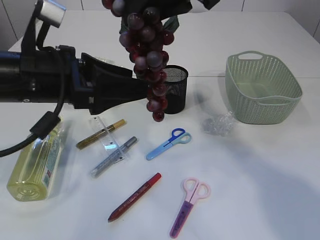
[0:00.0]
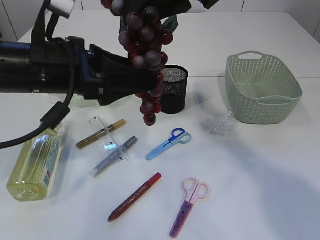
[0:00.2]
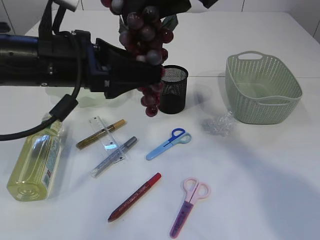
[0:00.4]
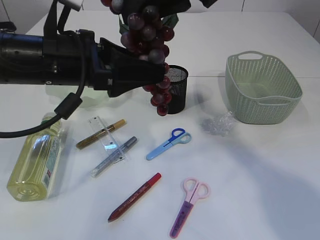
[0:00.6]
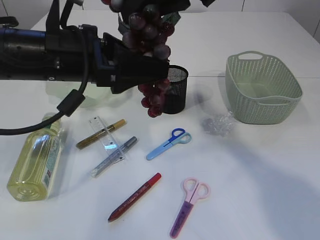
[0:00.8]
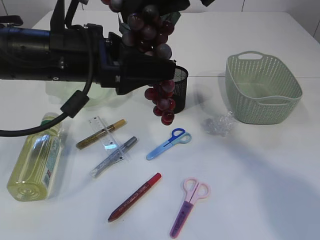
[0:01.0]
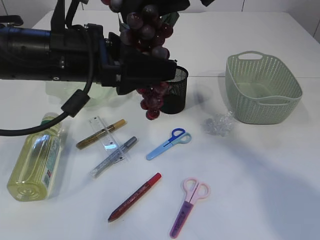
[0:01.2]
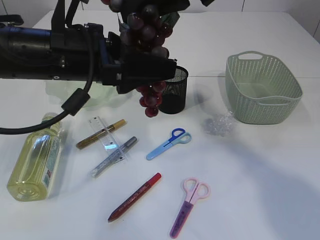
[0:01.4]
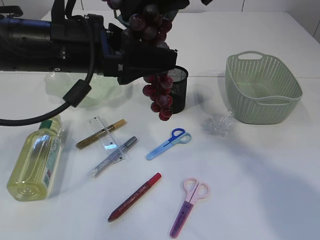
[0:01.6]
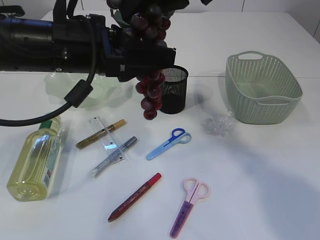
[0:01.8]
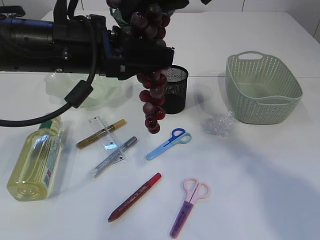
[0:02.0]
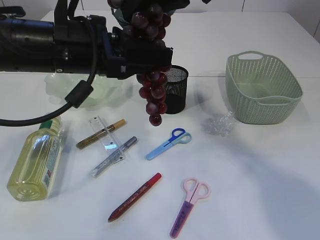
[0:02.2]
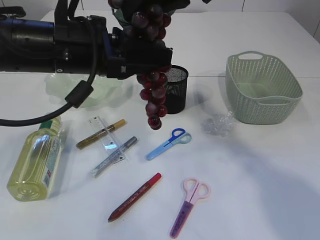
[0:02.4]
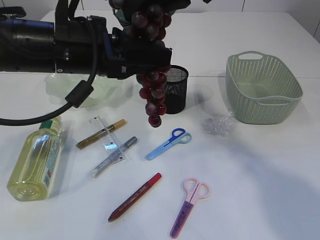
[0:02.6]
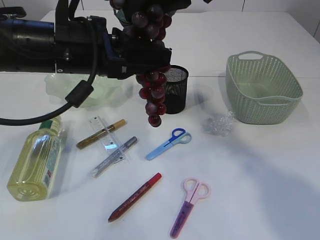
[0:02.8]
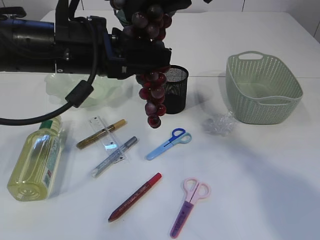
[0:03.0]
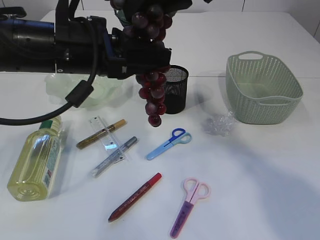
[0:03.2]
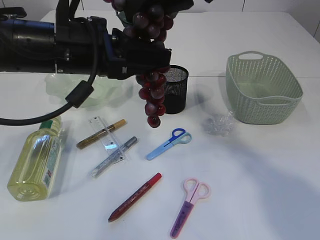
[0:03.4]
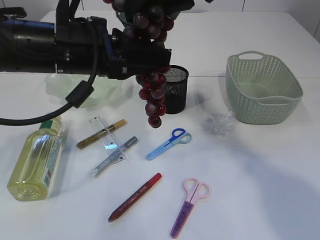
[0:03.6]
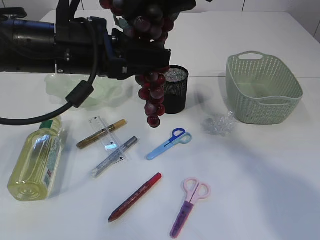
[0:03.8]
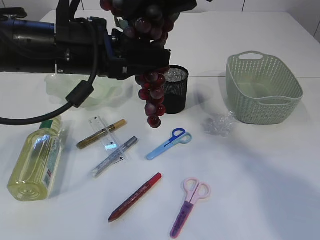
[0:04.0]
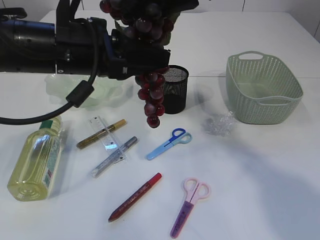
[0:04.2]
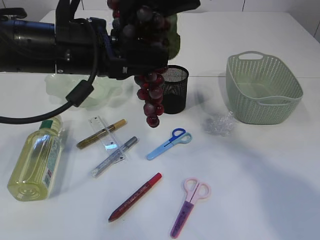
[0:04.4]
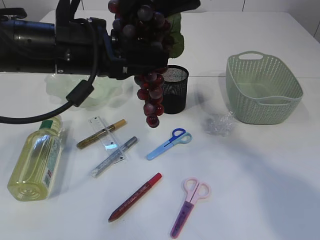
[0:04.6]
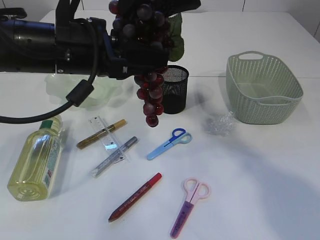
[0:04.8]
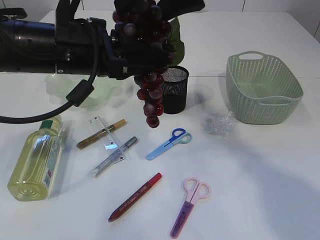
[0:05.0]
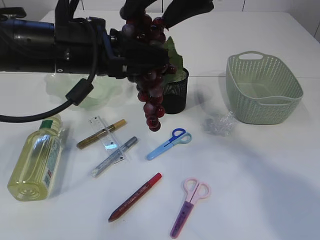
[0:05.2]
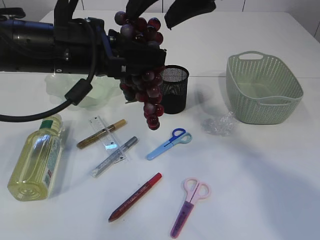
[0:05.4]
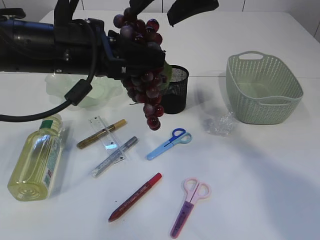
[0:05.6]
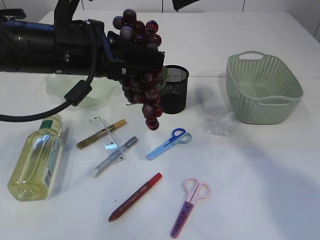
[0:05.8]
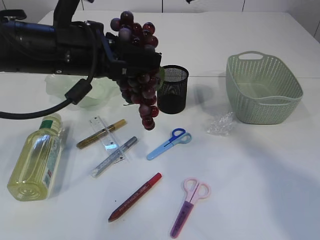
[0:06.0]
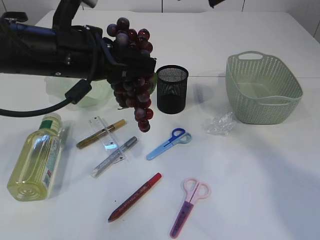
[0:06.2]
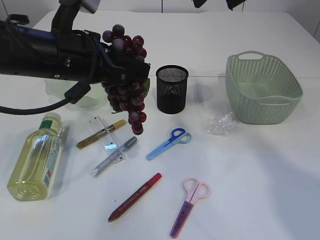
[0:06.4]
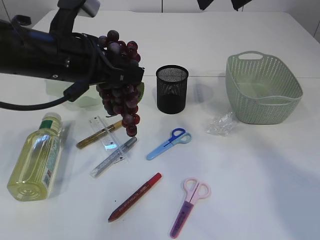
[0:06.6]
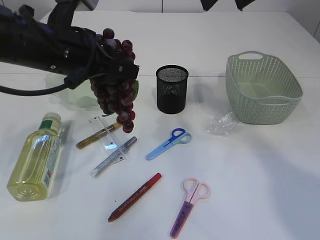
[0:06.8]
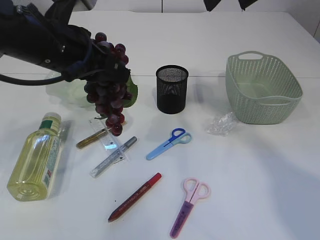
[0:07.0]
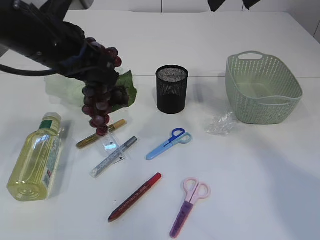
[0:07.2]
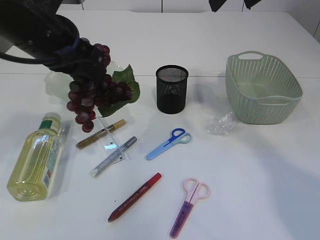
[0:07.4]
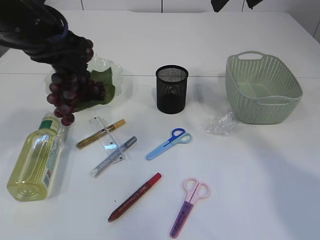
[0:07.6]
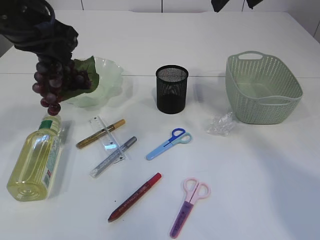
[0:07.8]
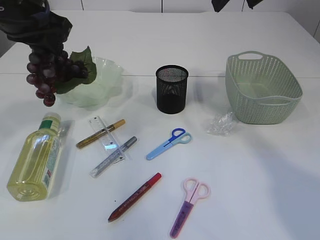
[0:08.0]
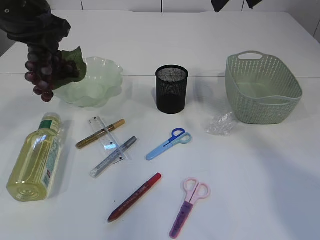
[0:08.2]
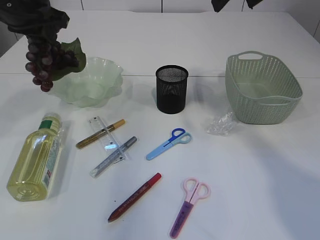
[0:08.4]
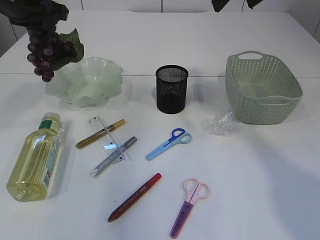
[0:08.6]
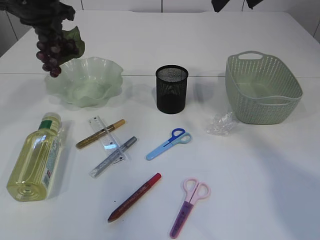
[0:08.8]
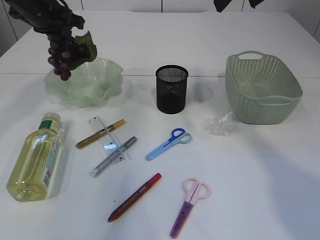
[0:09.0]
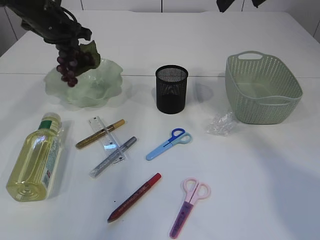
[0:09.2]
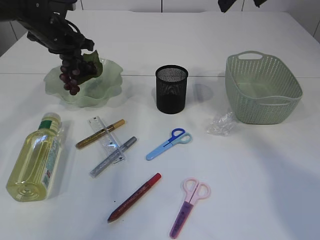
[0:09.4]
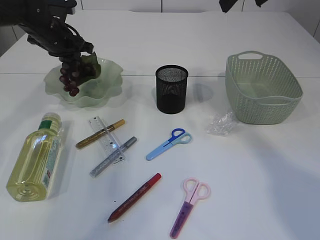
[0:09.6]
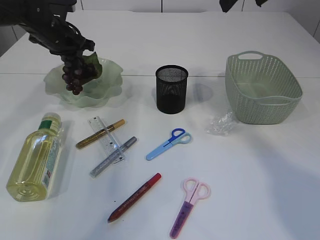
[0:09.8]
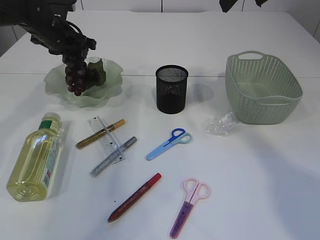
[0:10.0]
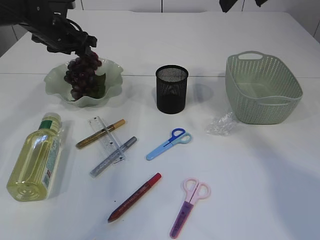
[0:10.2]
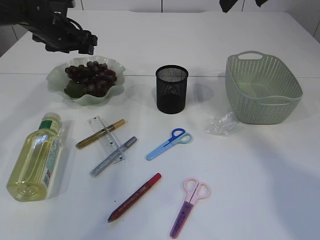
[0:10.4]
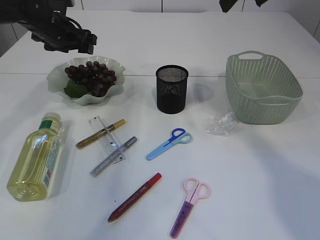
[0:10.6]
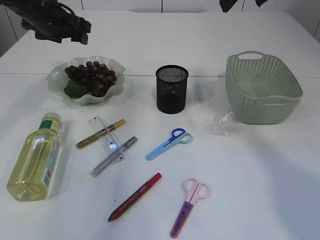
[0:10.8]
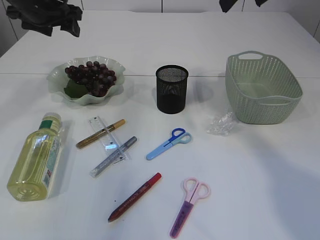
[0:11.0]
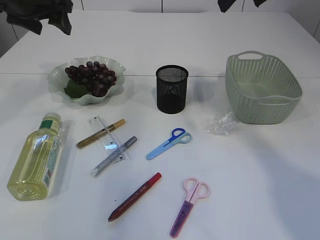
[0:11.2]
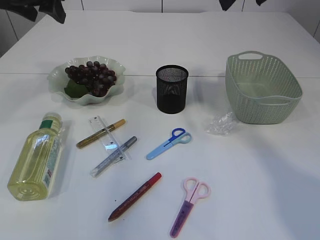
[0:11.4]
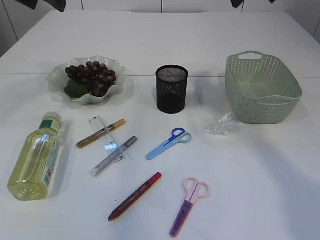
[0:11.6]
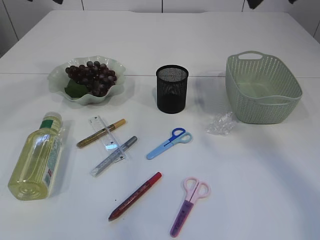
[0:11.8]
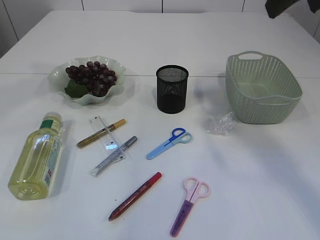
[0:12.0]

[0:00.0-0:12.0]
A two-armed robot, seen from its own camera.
Step, 0:00.0 to 0:05.6: Hand over the grapes.
Step, 0:05.8 to 0:10.6: Place the grapes in the plate.
0:00.0 to 0:01.6: The left gripper ends up about 5 cm from where it was.
0:01.6 to 0:03.0: The left gripper closes.
0:03.0 to 0:04.4: The right gripper opens up.
0:04.4 to 0:06.0: The right gripper changes place by some 5 cm, and opens its fingers.
0:06.0 to 0:07.6: The right gripper shifts by roughly 5 cm. The left gripper shifts by roughly 5 cm.
0:07.6 to 0:09.0: The left gripper shifts some 15 cm forward.
0:09.0 to 0:10.4: The left gripper travels downward by about 5 cm, and opens.
0:10.4 to 0:12.0: The left gripper shifts about 25 cm upward and backward; the right gripper is displaced backward by about 10 cm.

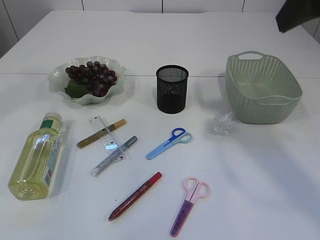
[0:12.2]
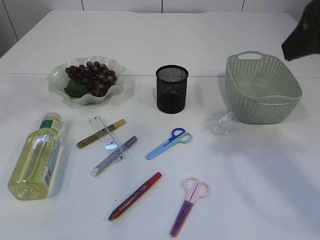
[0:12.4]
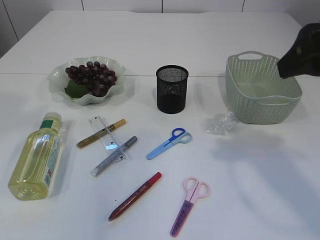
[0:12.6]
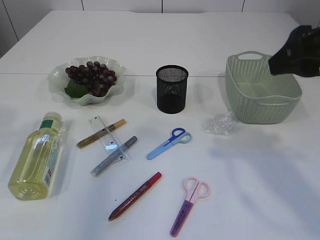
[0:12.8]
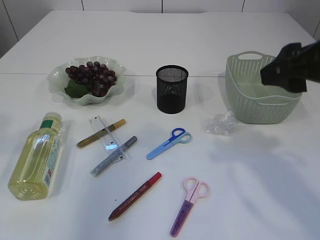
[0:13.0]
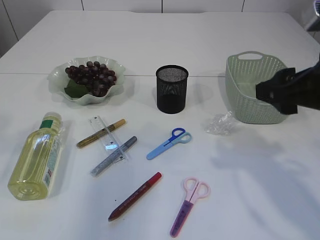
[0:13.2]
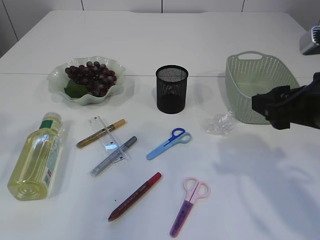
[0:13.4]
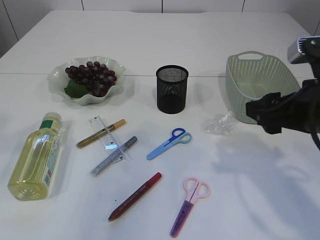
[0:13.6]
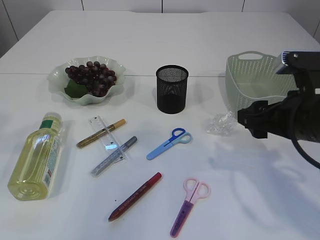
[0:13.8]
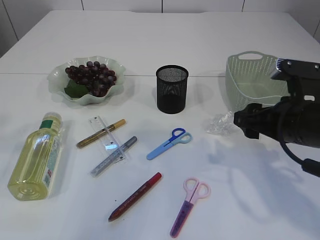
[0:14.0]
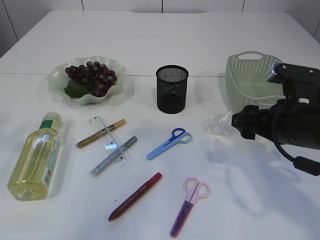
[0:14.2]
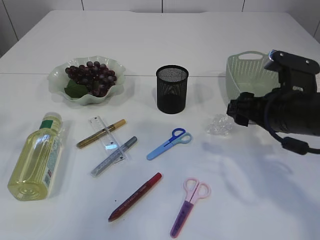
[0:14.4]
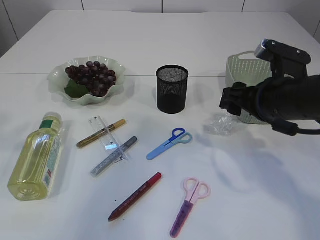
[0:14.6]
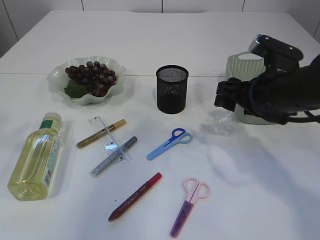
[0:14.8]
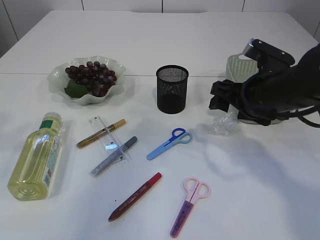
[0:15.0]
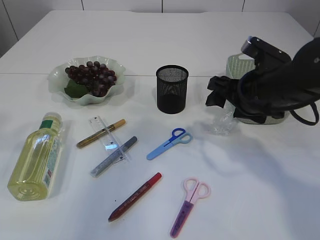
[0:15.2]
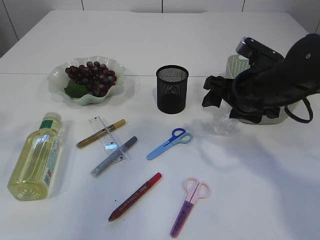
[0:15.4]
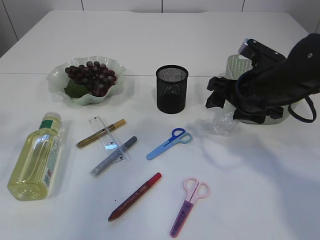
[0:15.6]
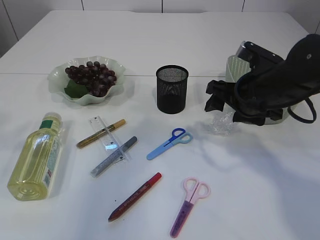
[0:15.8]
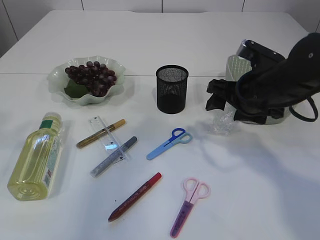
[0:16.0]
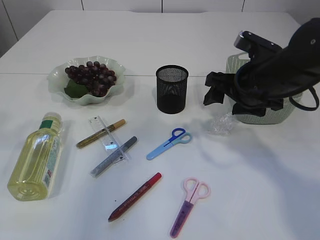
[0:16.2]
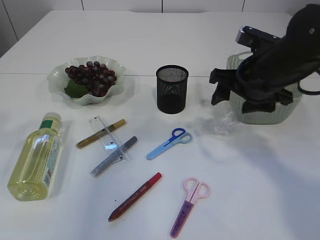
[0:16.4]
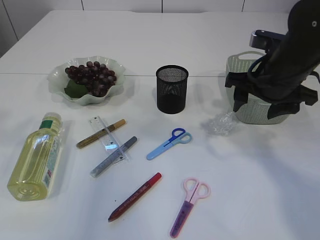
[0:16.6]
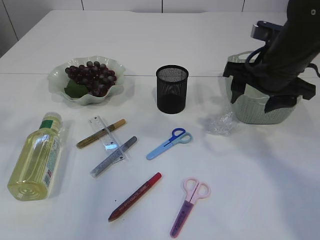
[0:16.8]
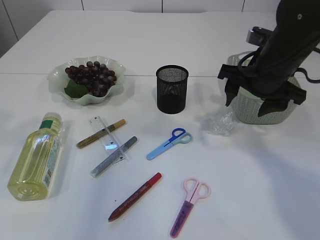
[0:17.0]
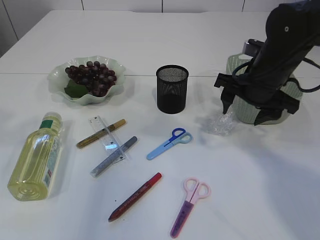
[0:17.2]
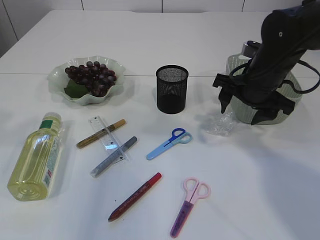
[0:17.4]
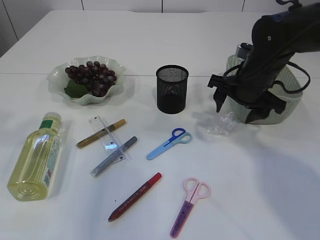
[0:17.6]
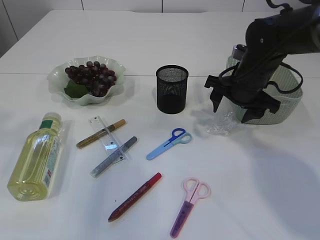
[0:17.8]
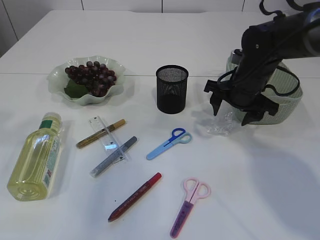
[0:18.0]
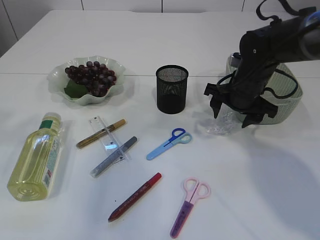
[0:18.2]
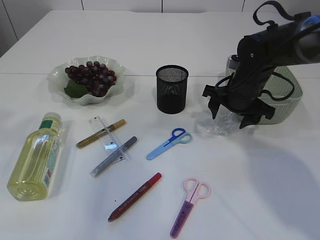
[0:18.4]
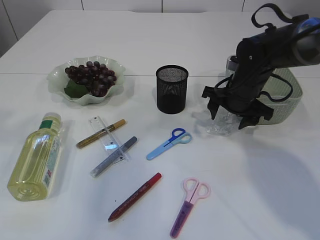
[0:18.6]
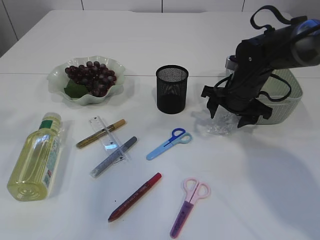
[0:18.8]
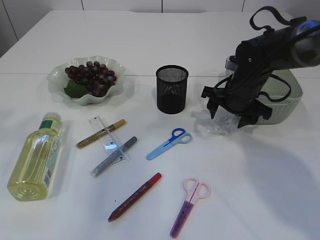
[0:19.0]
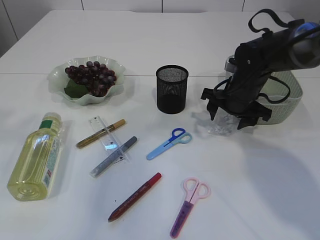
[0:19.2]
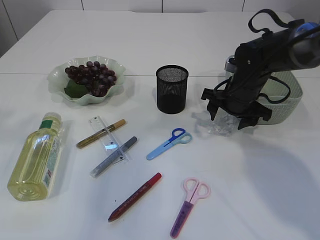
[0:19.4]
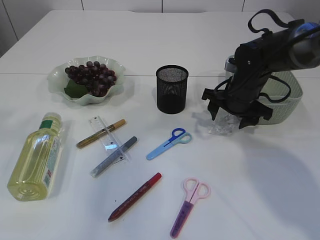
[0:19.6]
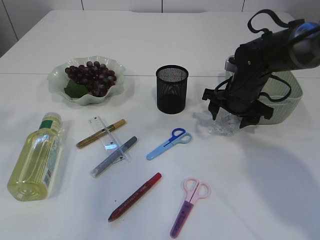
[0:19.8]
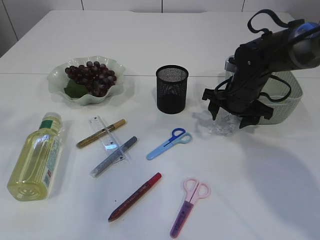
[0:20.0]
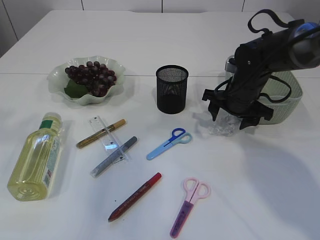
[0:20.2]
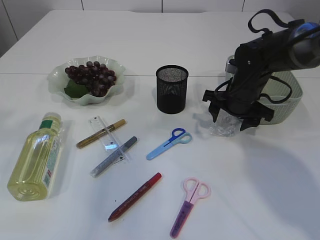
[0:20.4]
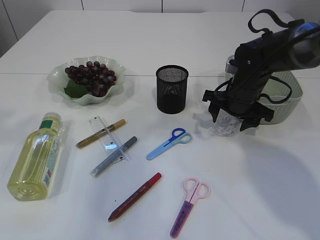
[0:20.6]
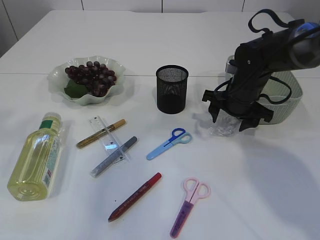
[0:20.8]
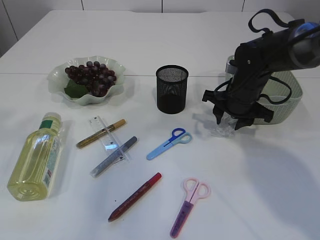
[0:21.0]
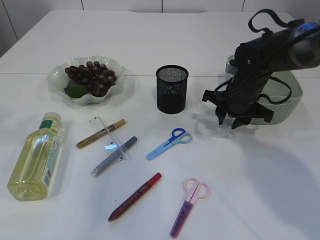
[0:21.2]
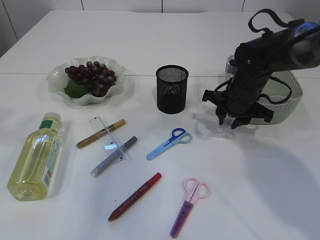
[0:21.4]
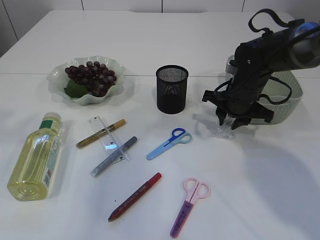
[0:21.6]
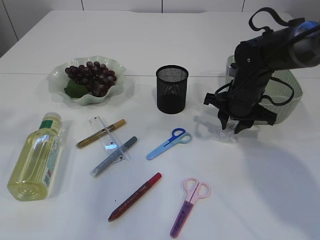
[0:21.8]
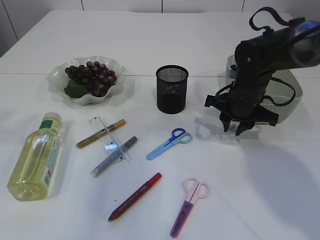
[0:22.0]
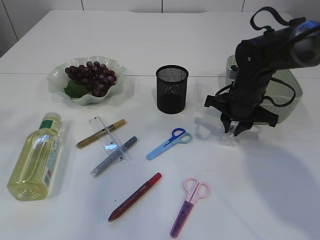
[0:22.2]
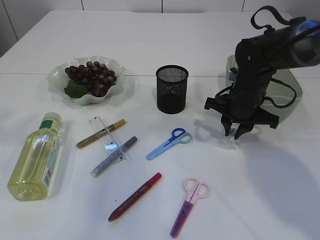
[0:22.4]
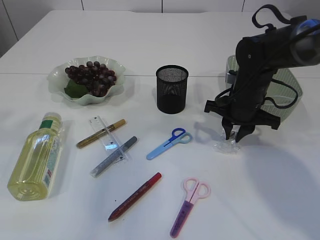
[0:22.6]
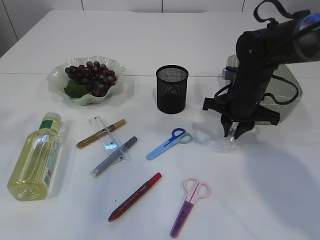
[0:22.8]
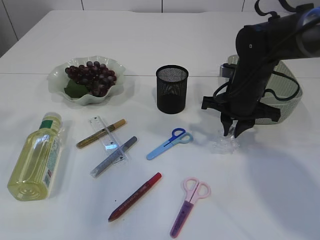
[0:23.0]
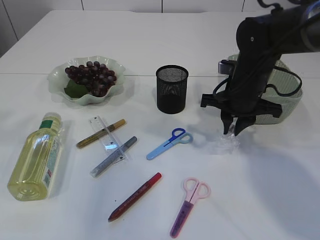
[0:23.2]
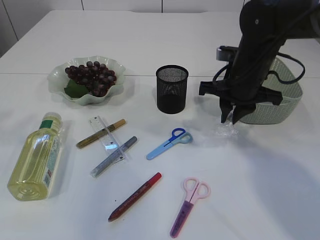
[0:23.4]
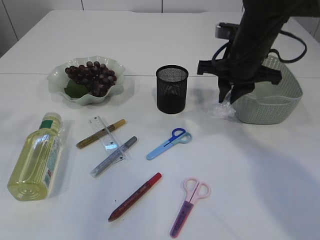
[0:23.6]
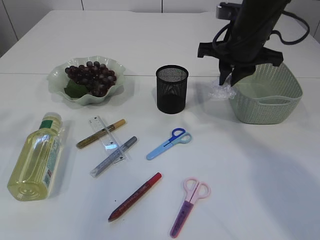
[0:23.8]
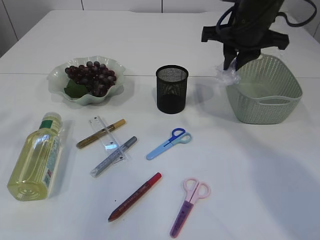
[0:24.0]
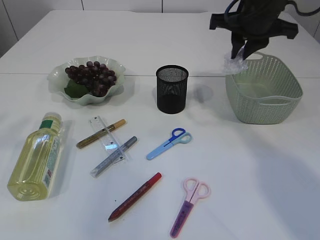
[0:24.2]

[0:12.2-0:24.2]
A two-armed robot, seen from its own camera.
Step, 0:12.2 to 0:23.4: Pick up the plastic.
0:12.2 to 0:13.8: The right gripper heads downward, covering roughly 20 cm. Meanwhile the left gripper is displaced backward by approximately 15 cm.
0:13.8 to 0:15.2: The right gripper heads forward, covering approximately 10 cm.
0:16.6 to 0:18.2: The right gripper shifts approximately 10 cm downward and forward.
0:18.2 to 0:19.8: The grippers make only small movements.
0:19.8 to 0:21.2: The right gripper closes its fingers.
0:21.2 to 0:22.6: There are only small adjustments of the grippers.
0:22.6 to 0:24.2: The right gripper shifts approximately 15 cm upward.
